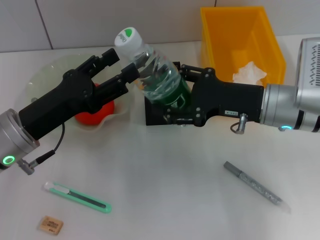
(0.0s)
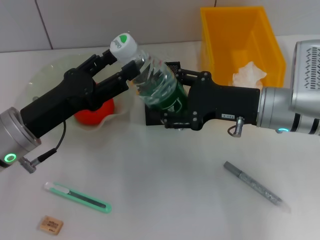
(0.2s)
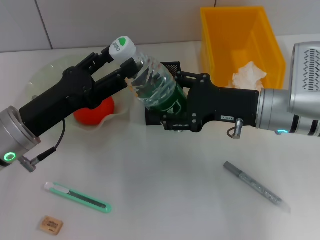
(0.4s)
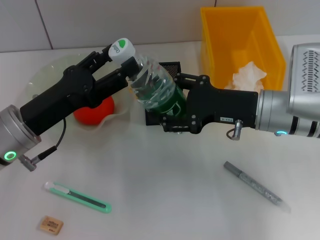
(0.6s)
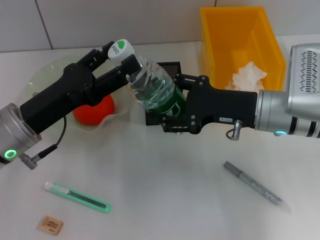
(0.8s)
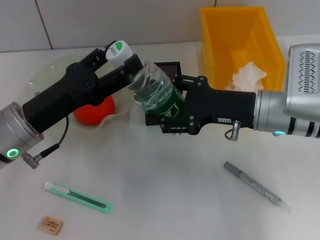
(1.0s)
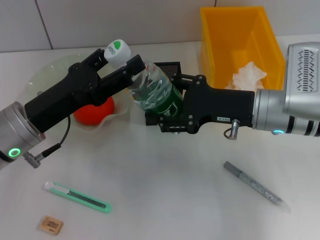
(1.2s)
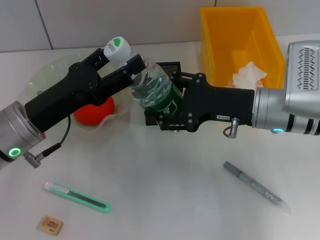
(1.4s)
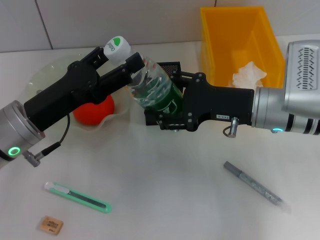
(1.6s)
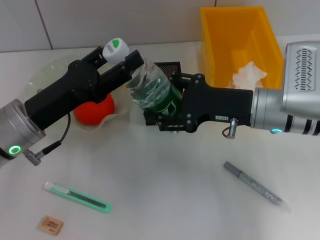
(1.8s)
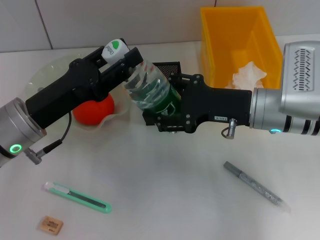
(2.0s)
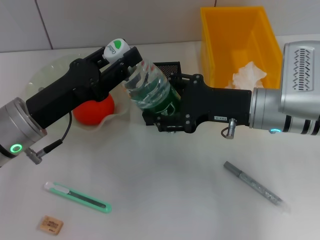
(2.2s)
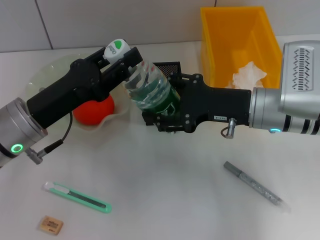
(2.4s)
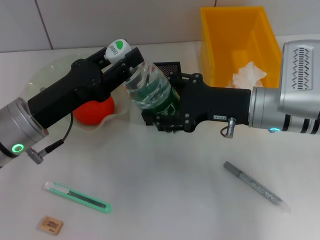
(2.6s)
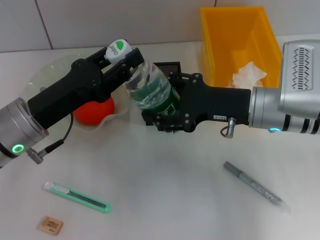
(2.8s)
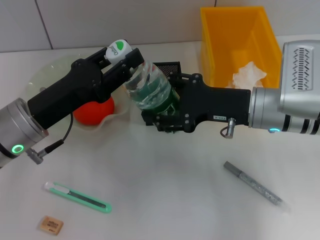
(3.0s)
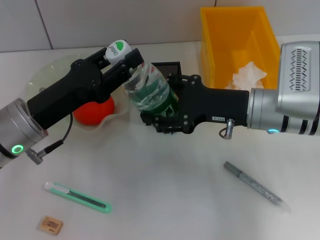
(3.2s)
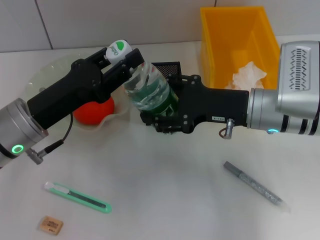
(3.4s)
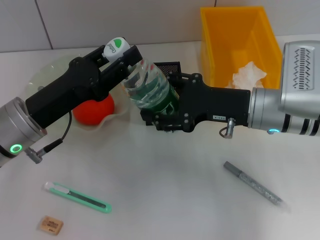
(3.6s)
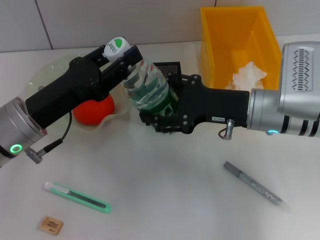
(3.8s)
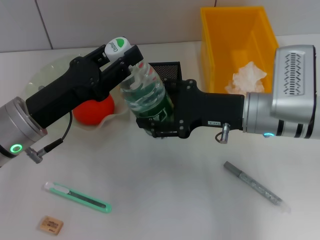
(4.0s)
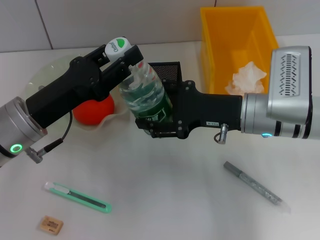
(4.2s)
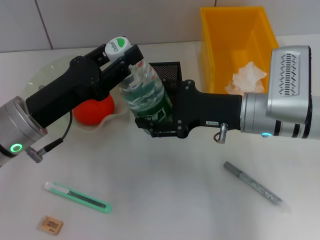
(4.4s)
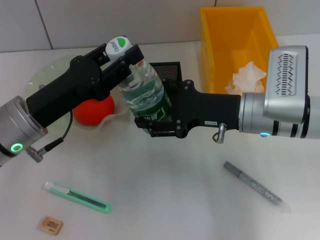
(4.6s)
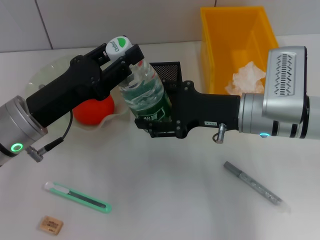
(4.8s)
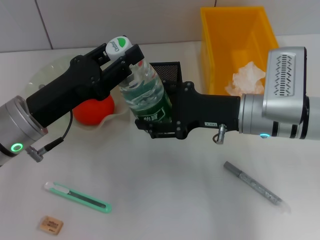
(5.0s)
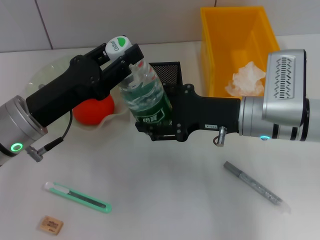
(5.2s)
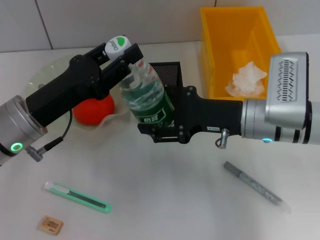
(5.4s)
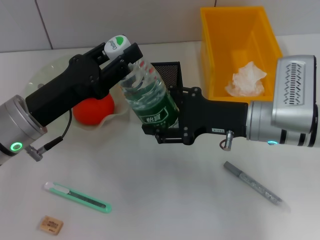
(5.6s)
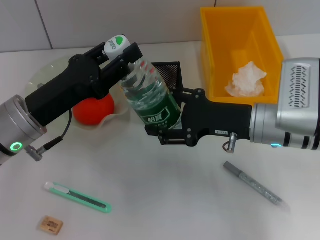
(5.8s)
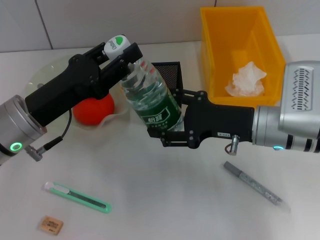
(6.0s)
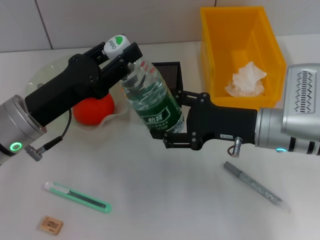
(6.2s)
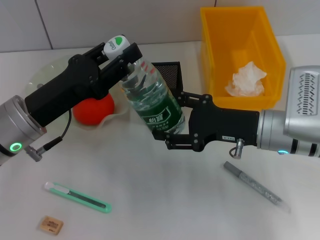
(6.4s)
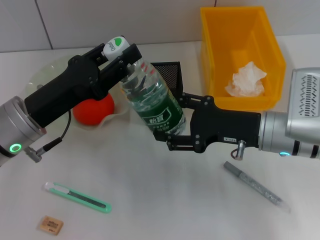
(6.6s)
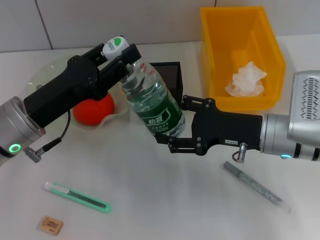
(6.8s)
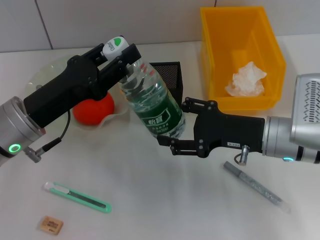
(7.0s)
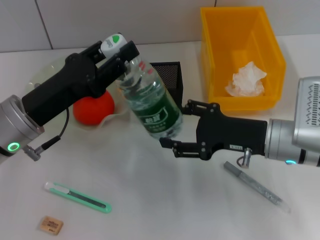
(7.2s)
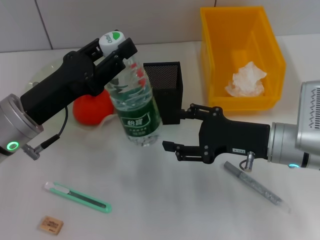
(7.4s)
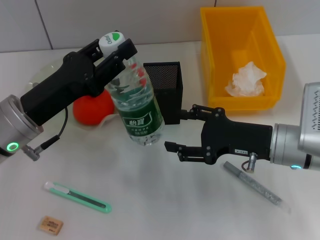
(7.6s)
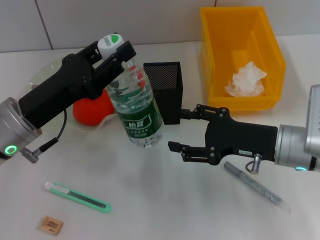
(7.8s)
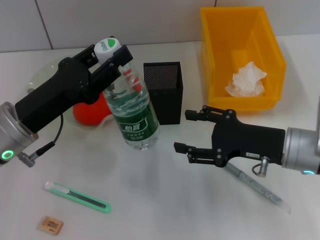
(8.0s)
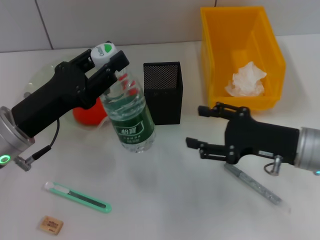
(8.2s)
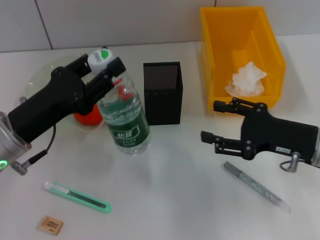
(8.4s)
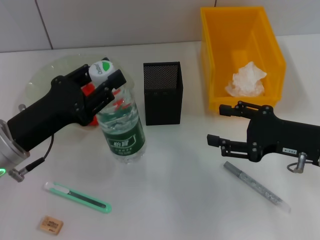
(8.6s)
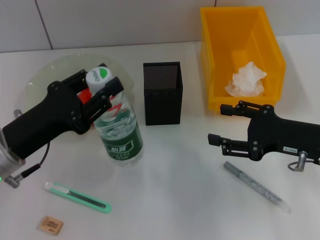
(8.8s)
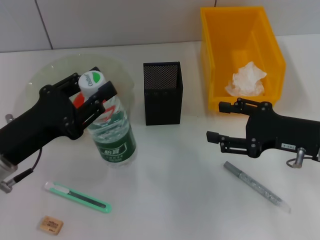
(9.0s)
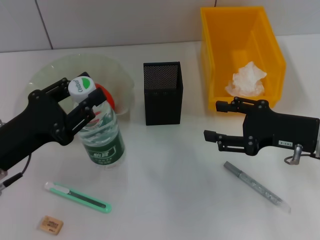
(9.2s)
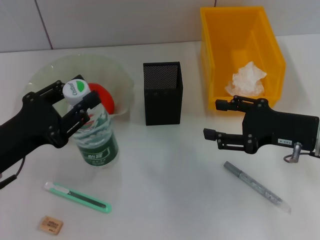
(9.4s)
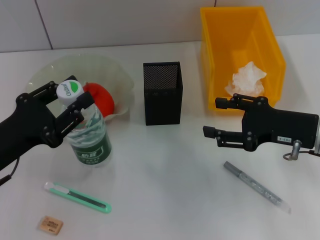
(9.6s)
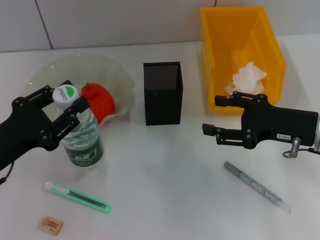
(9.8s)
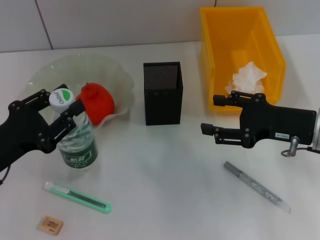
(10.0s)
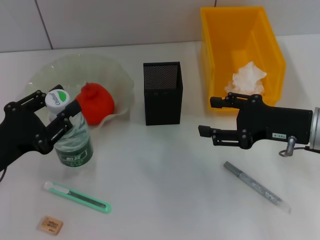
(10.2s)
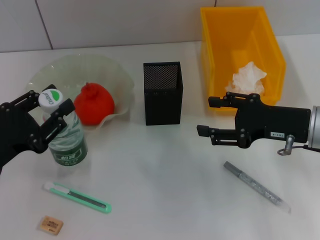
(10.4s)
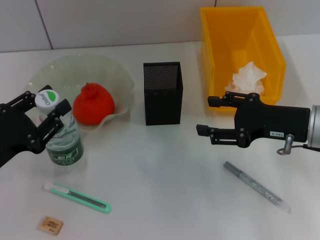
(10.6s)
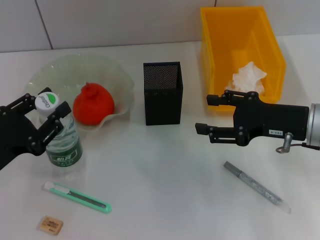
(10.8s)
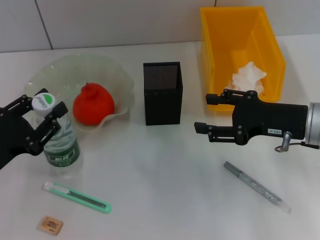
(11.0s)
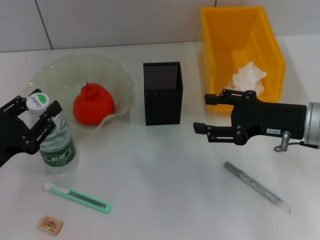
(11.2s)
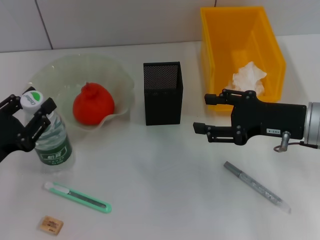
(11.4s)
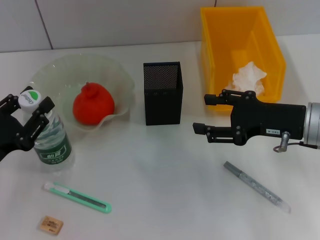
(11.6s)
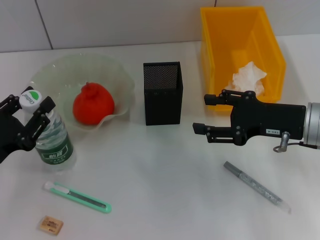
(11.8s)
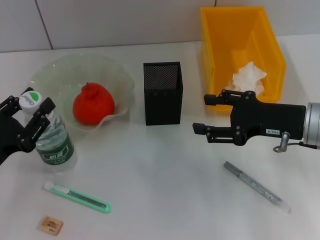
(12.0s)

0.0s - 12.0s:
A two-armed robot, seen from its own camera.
Step, 0.0s - 7.4s: Pass the water bottle from the right hand to the left hand.
0.0s - 1.6s: Both grippers stay about where they are.
1.6s - 3.0s: The left gripper closes its fingers.
3.0s - 4.4s: Neither gripper changes place.
4.4s - 7.6s: There are only small adjustments of the grippers.
7.6s - 9.0s: The left gripper changes place by some 5 cm. Meanwhile the right gripper shifts about 5 cm to the right.
9.0s - 10.4s: The left gripper shifts by roughly 5 cm.
10.4s - 12.0s: The grippers stay close to where they were, moving slightly.

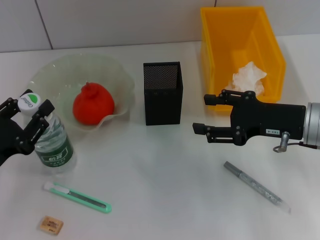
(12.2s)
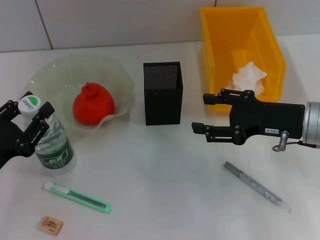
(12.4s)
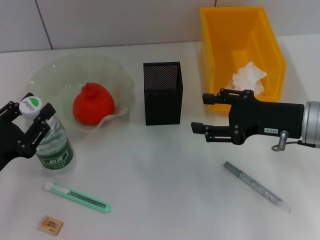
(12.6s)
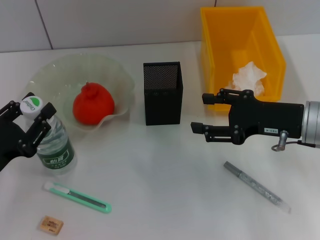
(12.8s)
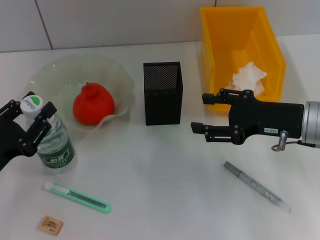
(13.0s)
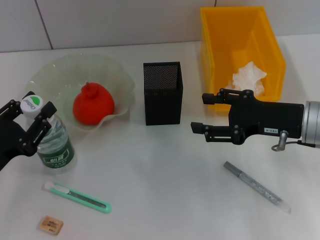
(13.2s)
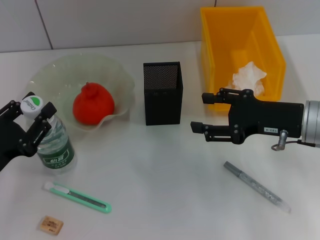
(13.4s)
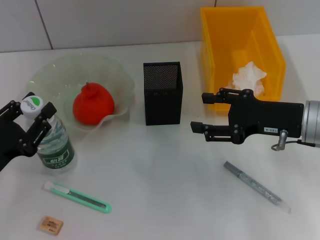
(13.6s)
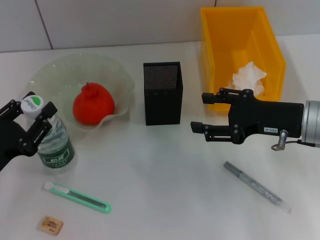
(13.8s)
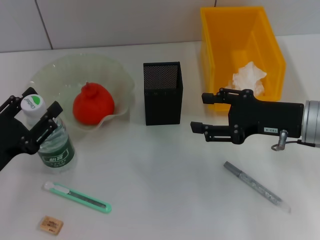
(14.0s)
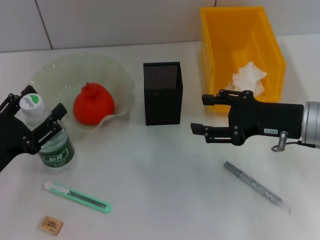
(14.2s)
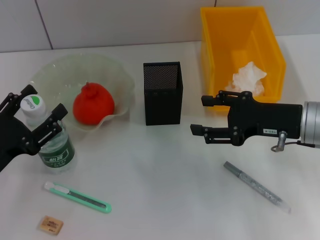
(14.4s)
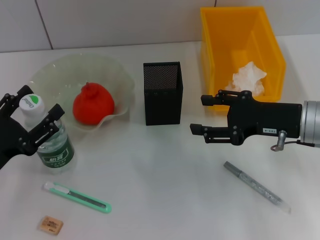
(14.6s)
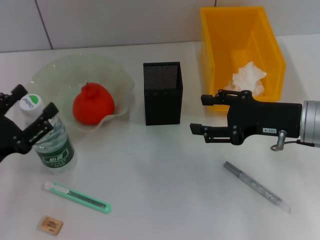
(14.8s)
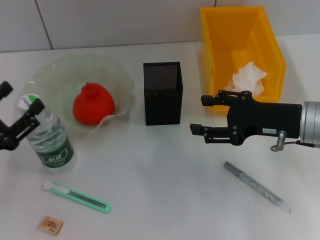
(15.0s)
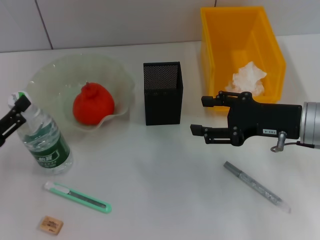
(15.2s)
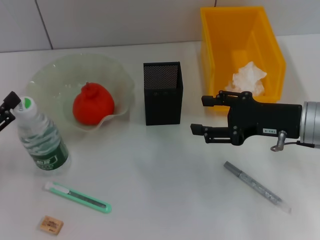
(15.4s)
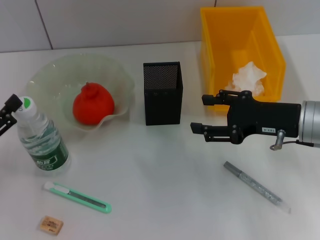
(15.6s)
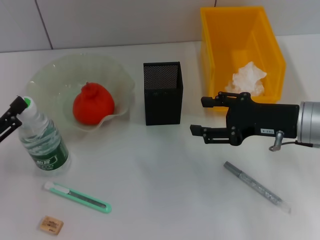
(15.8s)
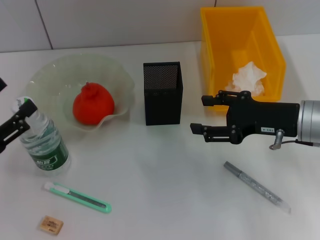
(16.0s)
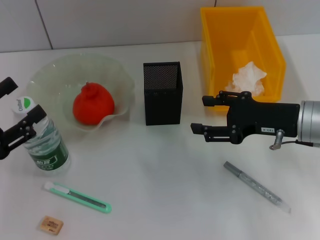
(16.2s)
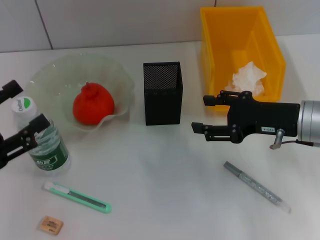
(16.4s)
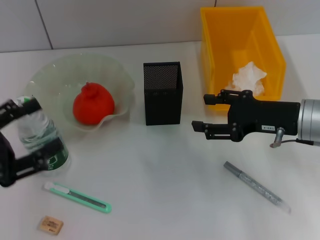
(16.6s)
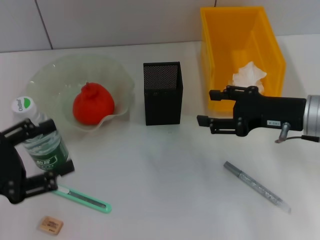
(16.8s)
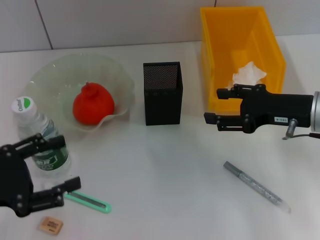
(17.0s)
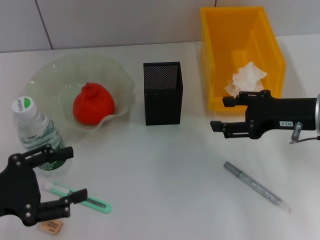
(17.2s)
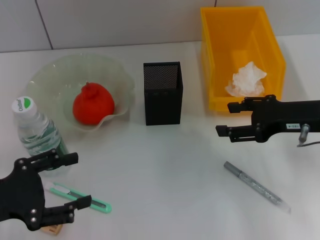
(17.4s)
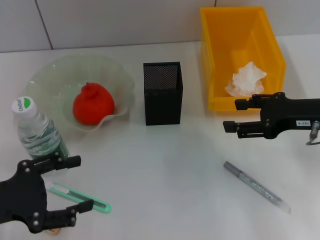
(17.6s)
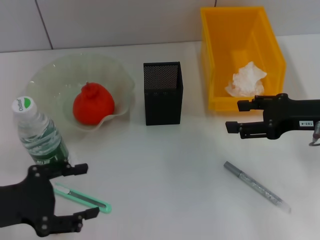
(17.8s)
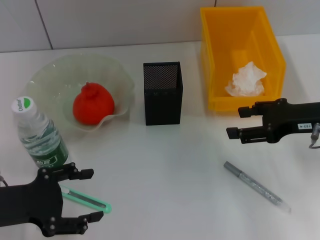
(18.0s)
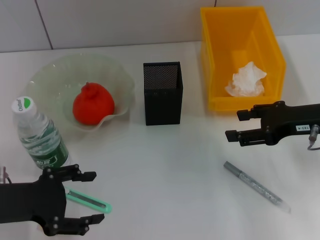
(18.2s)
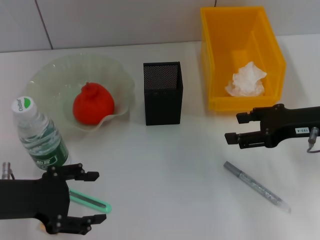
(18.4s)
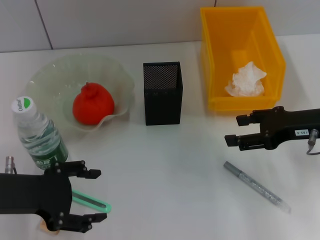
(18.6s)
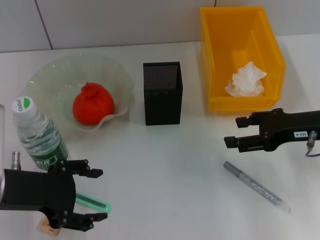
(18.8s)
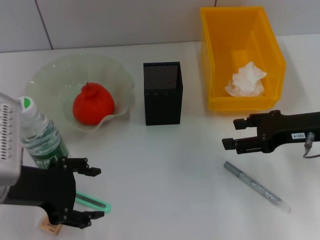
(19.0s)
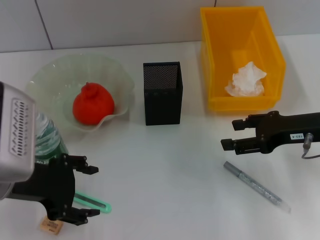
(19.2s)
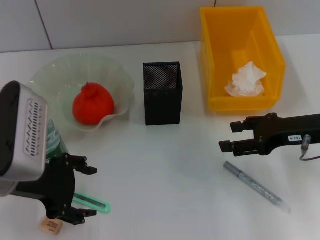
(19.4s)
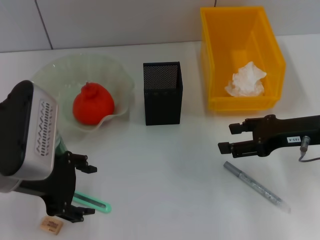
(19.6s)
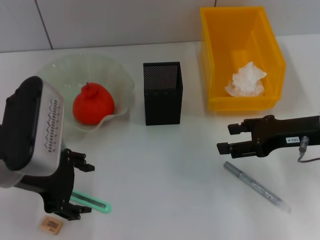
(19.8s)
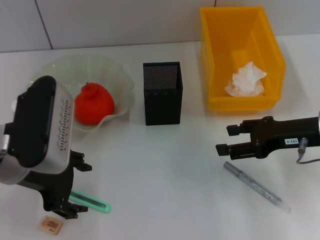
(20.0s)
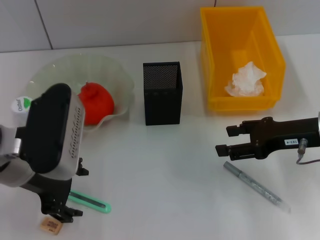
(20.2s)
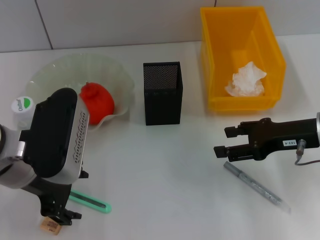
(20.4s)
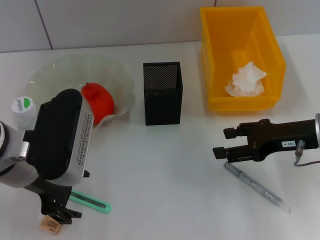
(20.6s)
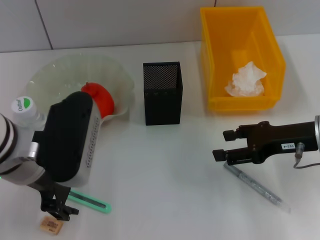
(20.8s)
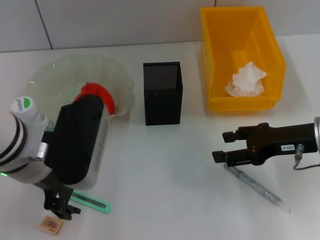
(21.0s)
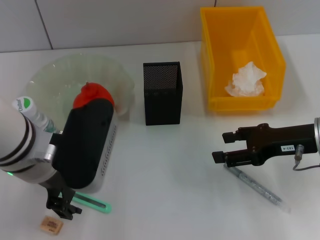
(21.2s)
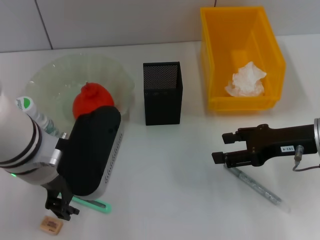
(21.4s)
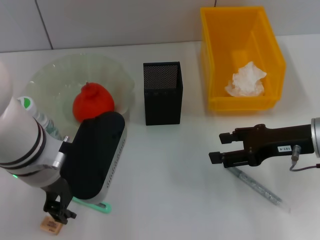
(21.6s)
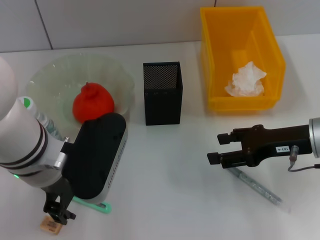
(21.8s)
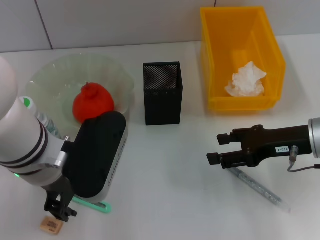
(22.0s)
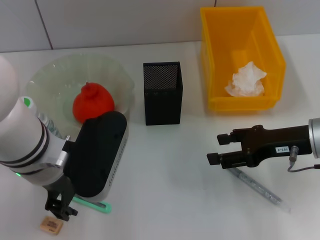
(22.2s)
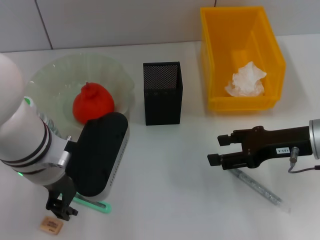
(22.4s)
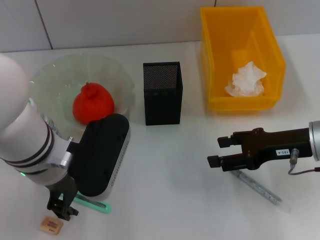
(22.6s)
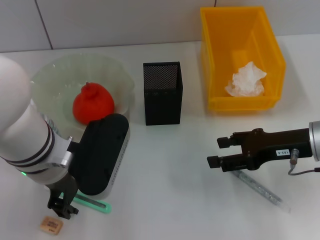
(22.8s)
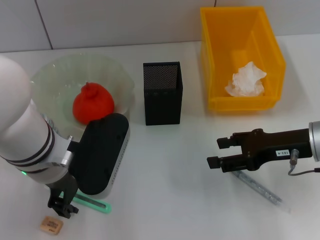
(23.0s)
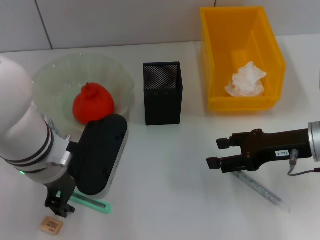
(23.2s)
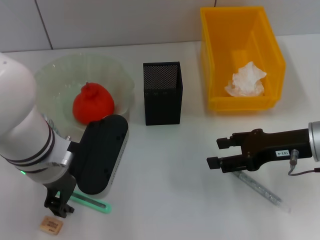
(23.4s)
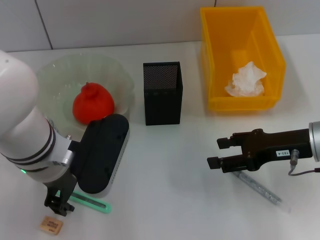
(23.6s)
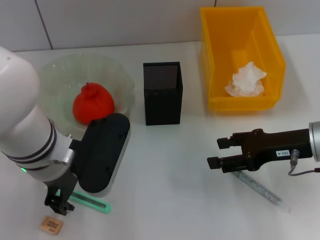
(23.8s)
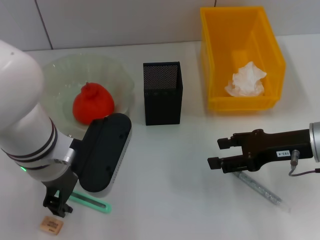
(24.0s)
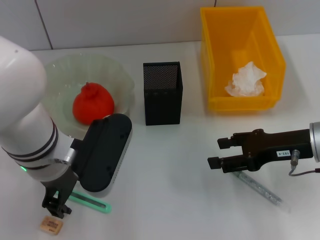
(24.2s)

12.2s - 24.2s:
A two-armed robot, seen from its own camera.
Step, 12.2s - 15.4s: Place the water bottle on the table with the left hand.
12.2s - 13.8s: Neither gripper changes place.
13.8s - 15.2s: The left gripper opens.
15.2s - 16.6s: The left gripper heads upward, covering roughly 5 cm.
16.6s - 18.2s: The left gripper changes place by roughly 5 cm.
18.2s - 19.8s: The left gripper travels to the right and upward by about 10 cm.
19.8s - 21.2s: The left gripper moves to the right, approximately 5 cm.
21.2s - 22.6s: There are only small adjustments of the grippers.
22.6s - 24.2s: Both grippers stay about where they are.
